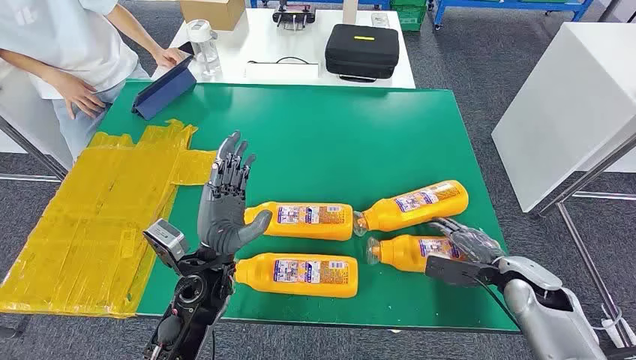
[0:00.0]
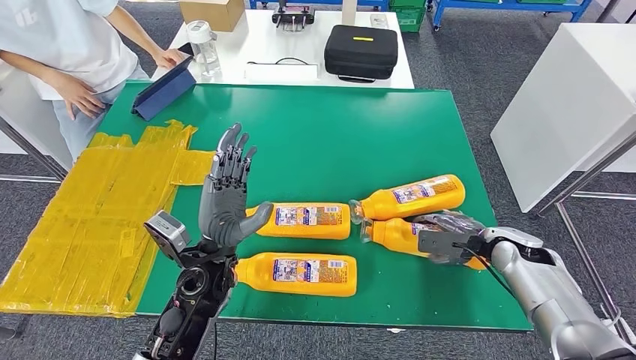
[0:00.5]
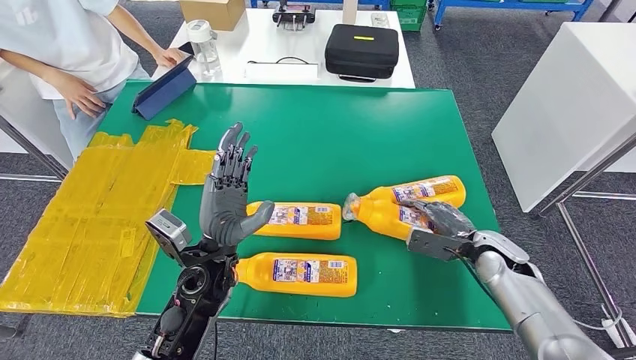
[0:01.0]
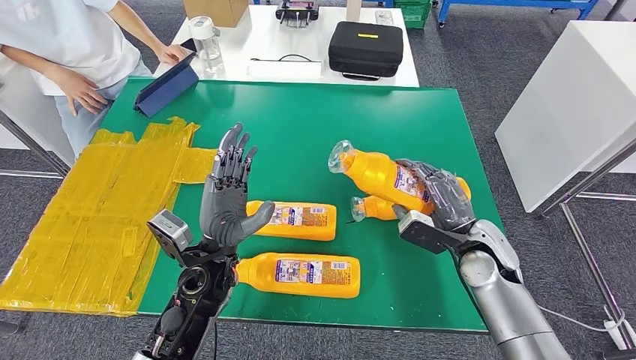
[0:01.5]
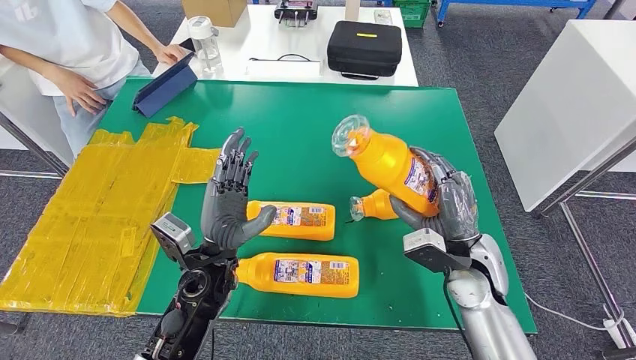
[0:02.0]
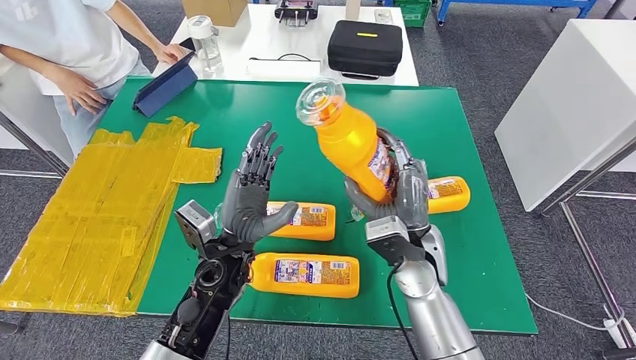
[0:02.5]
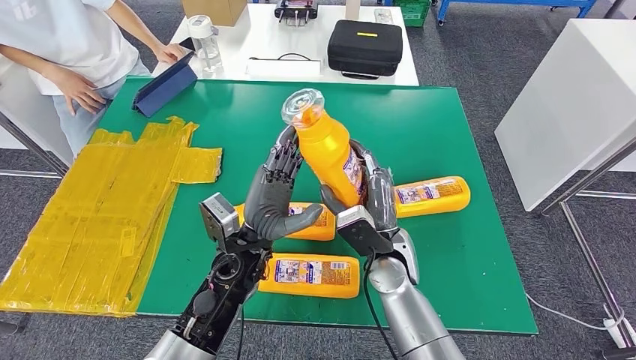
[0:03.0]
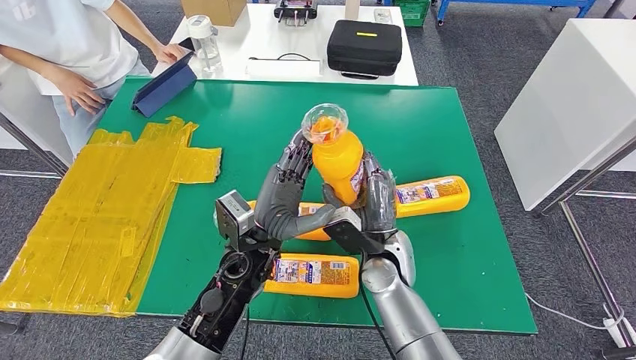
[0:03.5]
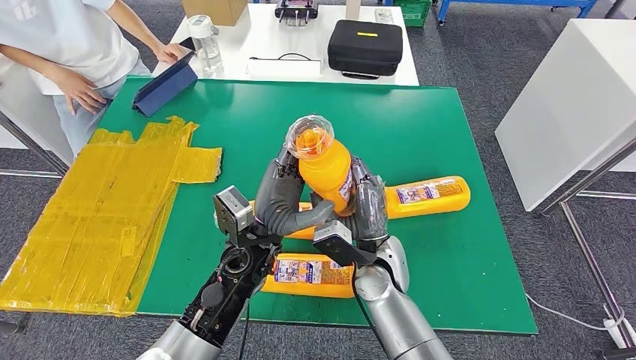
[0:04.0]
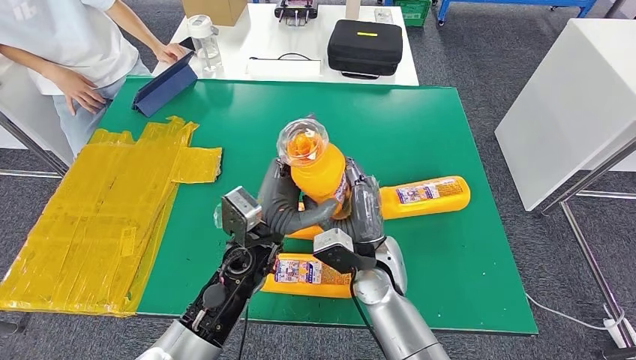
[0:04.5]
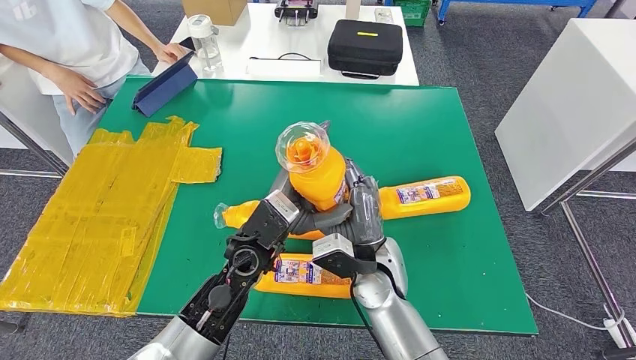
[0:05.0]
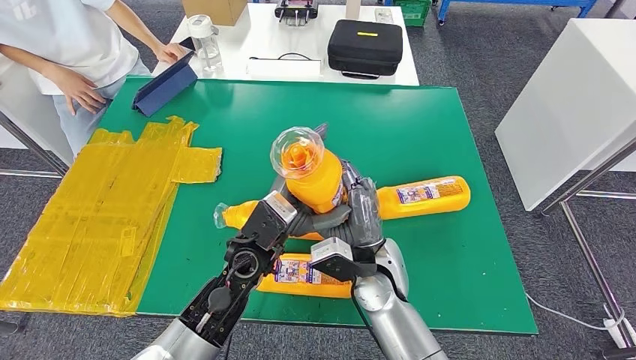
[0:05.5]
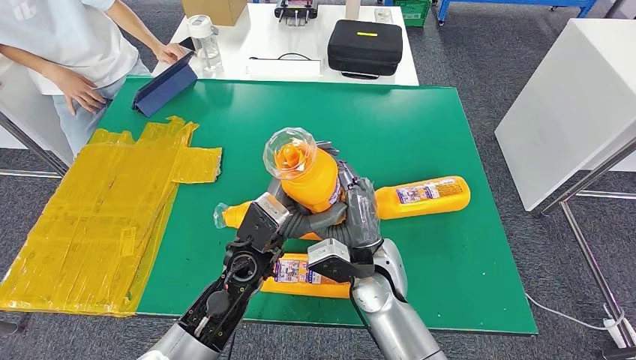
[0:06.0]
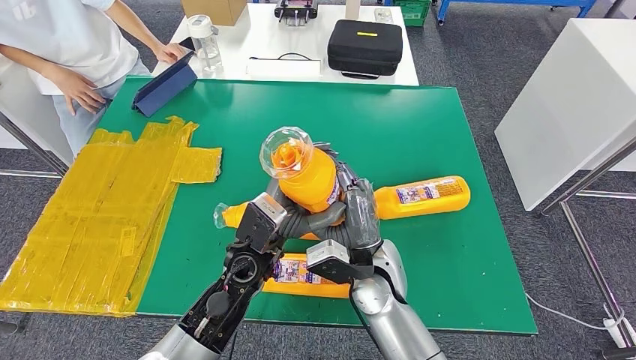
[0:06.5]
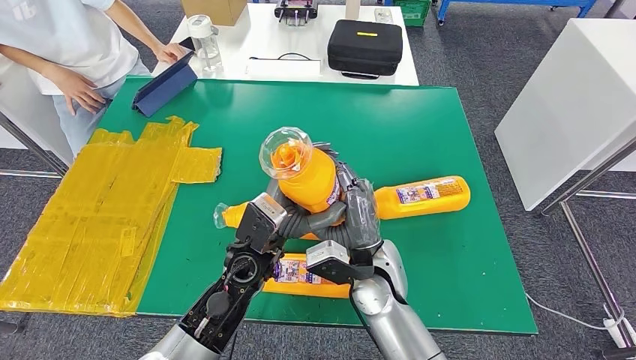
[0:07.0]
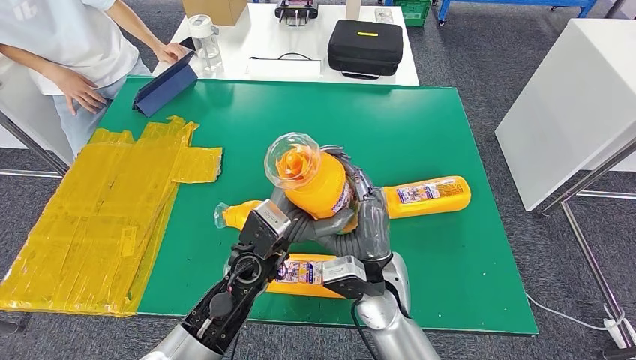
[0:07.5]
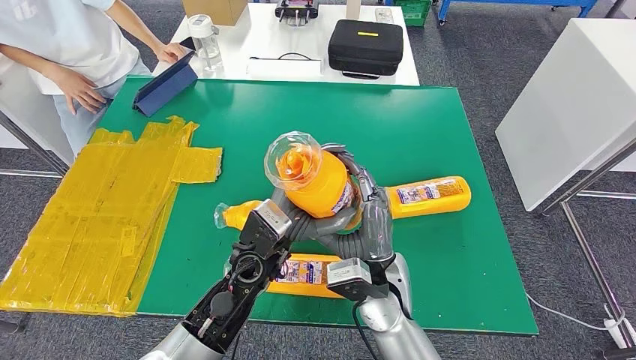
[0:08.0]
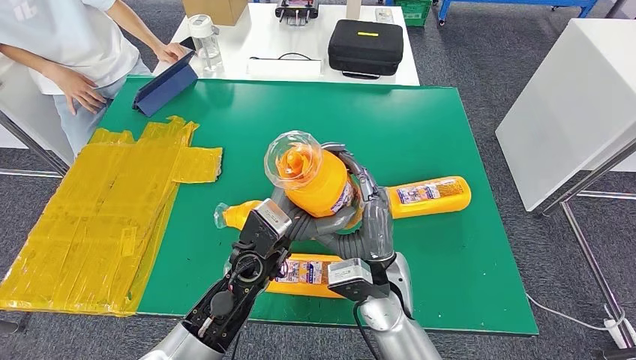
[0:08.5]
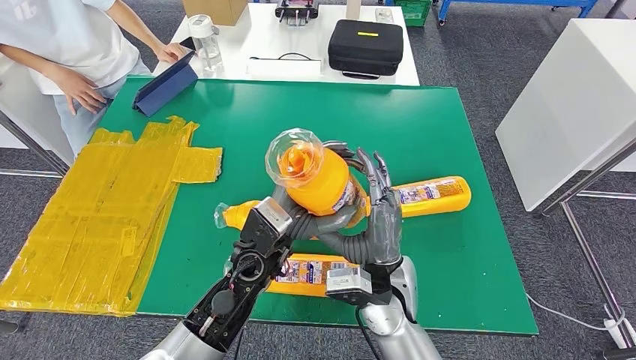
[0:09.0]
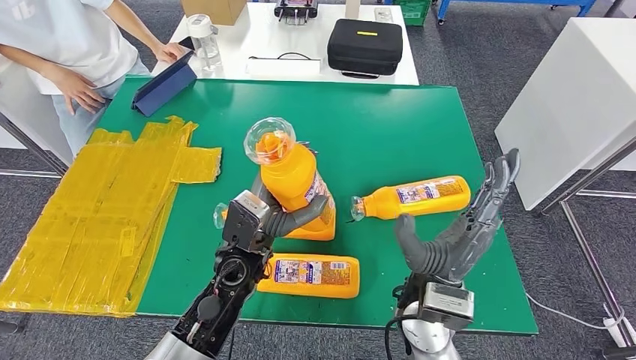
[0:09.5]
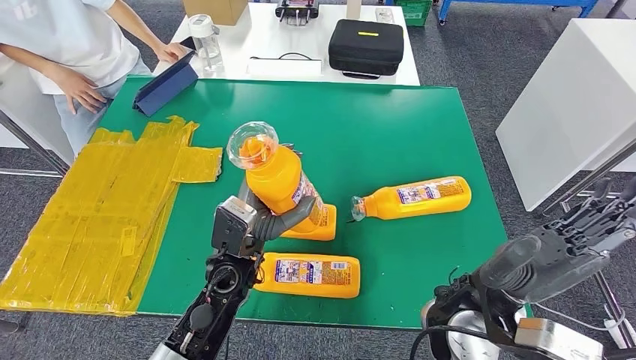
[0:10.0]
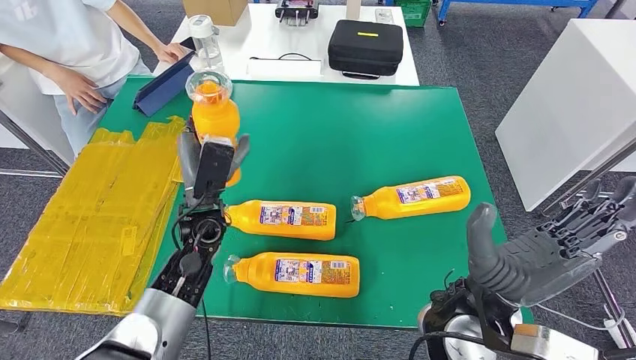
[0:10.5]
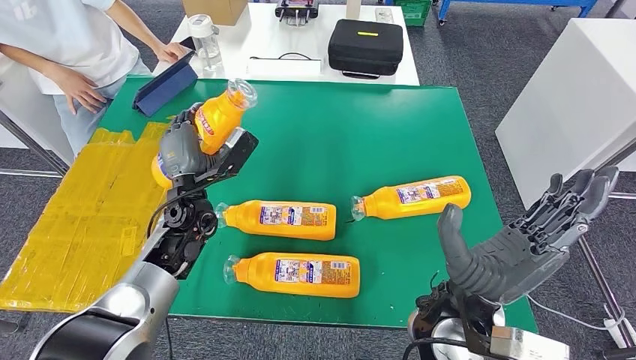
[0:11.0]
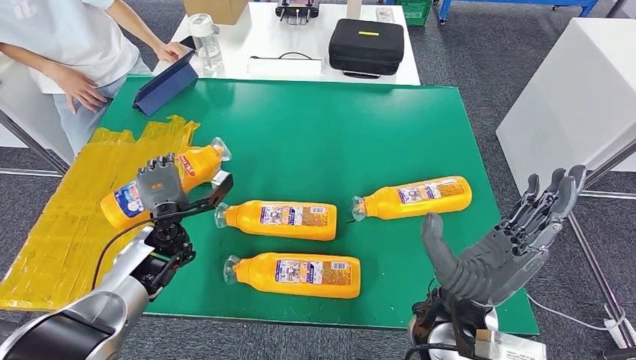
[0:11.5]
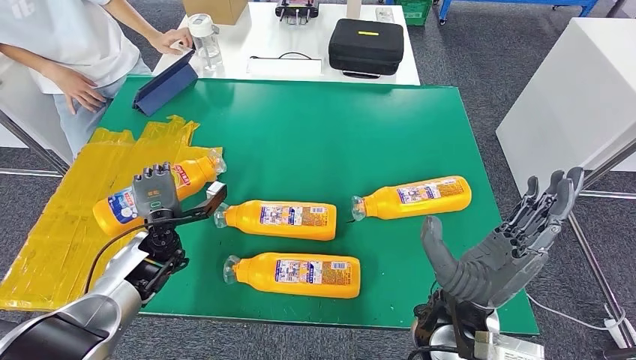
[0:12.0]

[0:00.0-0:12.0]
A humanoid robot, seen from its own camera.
Step, 0:00.0 to 0:04.0: Take the bottle from the table.
0:06.0 to 0:08.0: The hands stay close to where they were, moving slightly.
0:08.0 to 0:10.0: The right hand is displaced to the right and upward by roughly 10 cm.

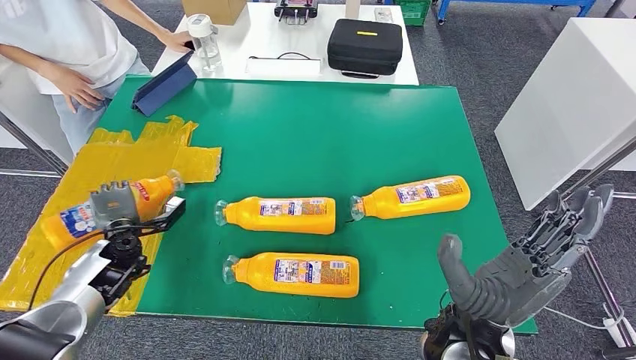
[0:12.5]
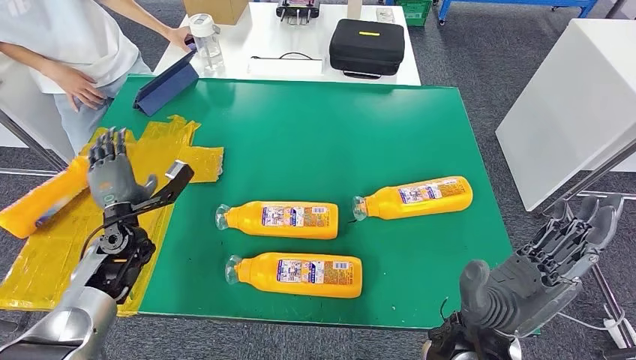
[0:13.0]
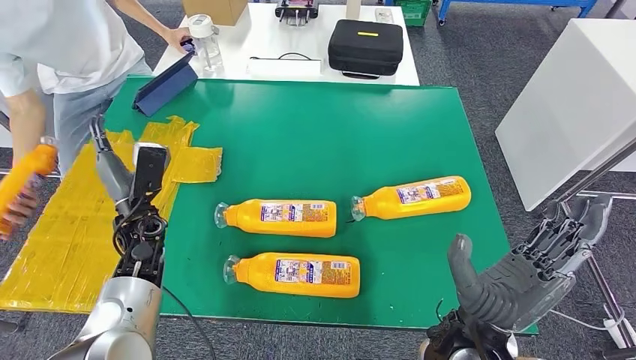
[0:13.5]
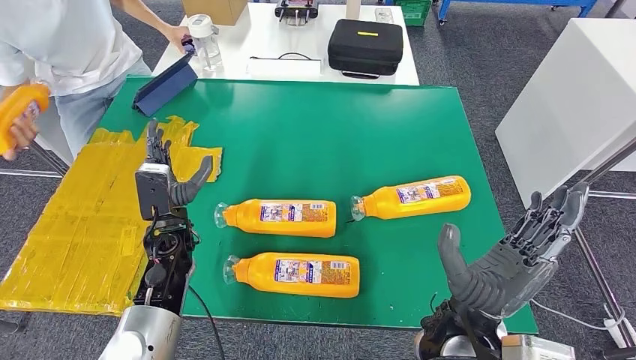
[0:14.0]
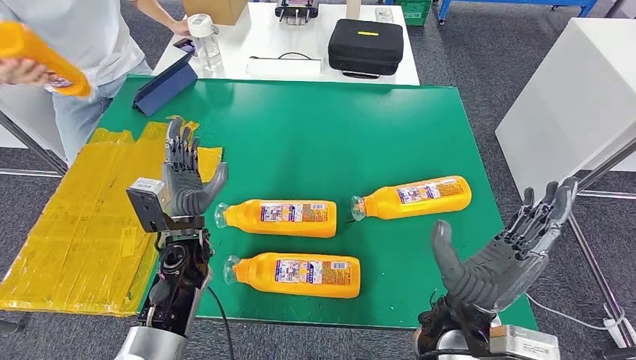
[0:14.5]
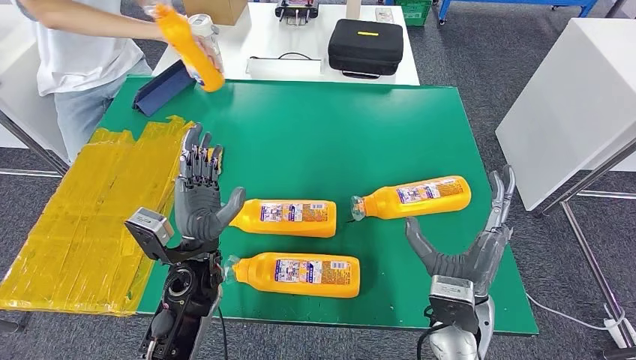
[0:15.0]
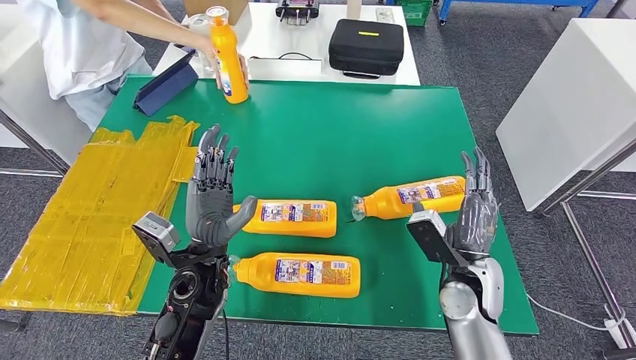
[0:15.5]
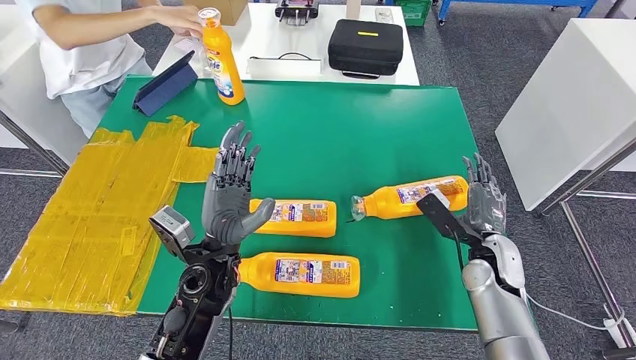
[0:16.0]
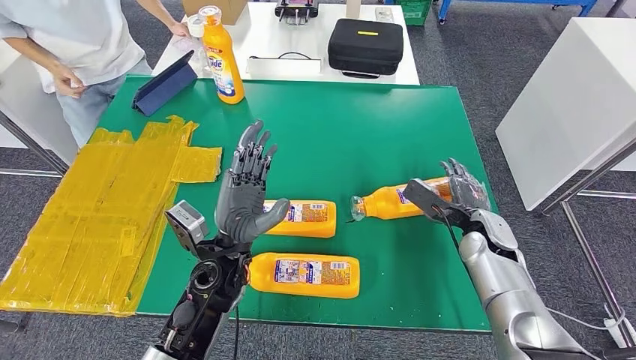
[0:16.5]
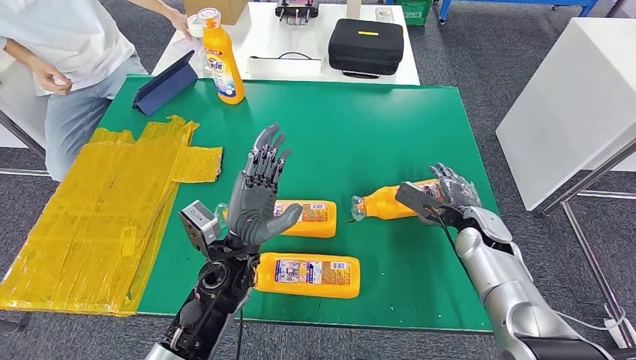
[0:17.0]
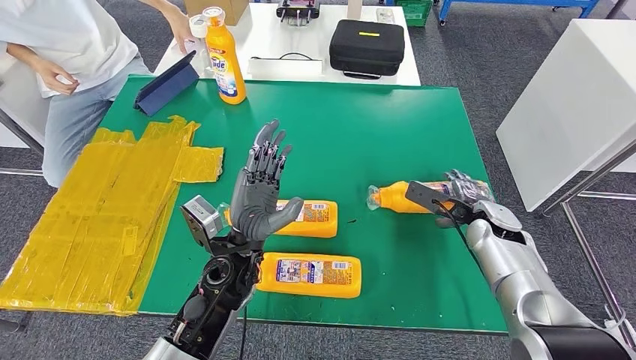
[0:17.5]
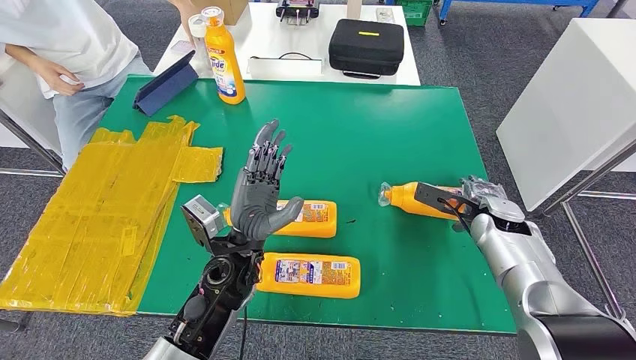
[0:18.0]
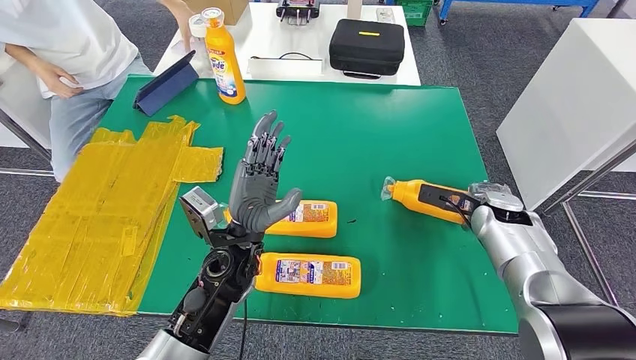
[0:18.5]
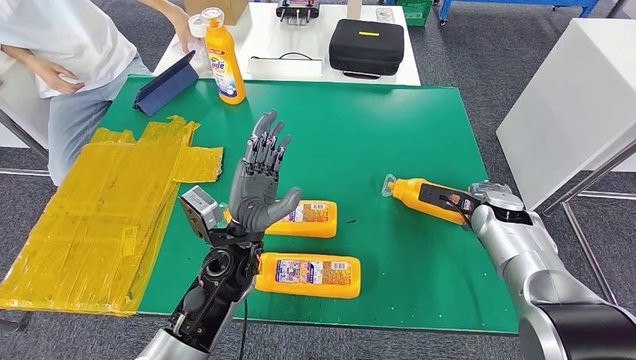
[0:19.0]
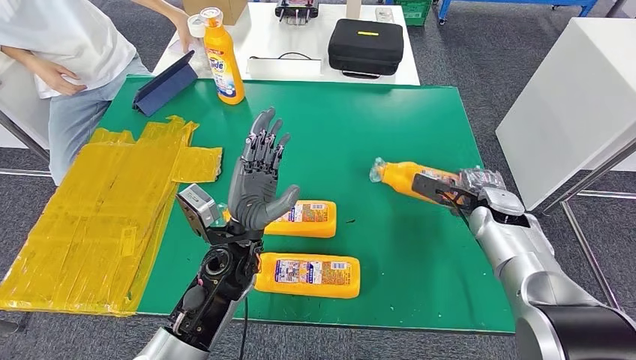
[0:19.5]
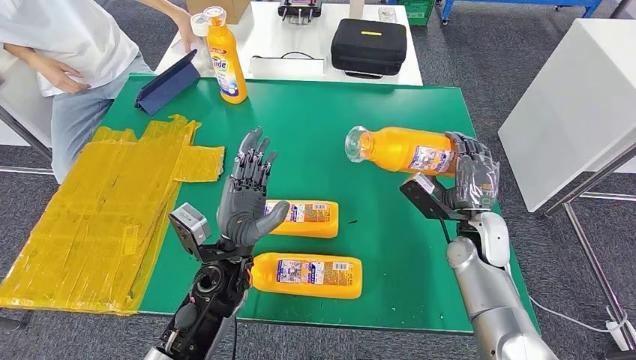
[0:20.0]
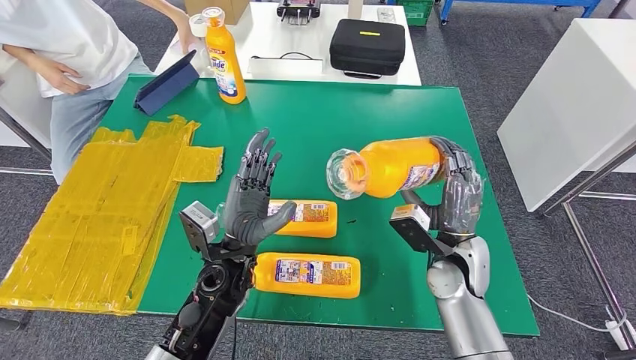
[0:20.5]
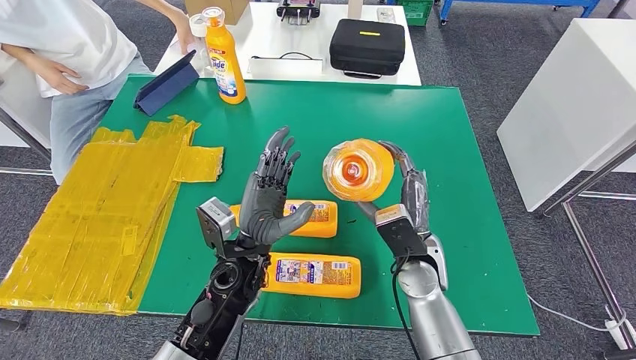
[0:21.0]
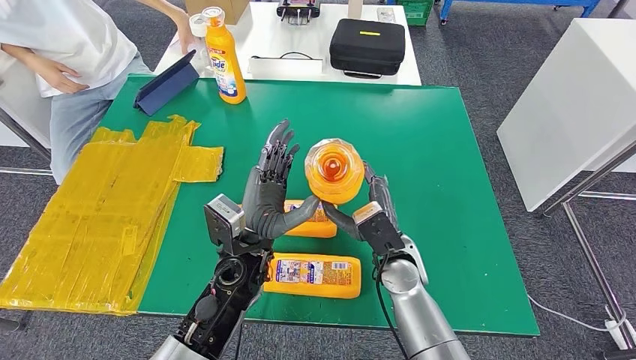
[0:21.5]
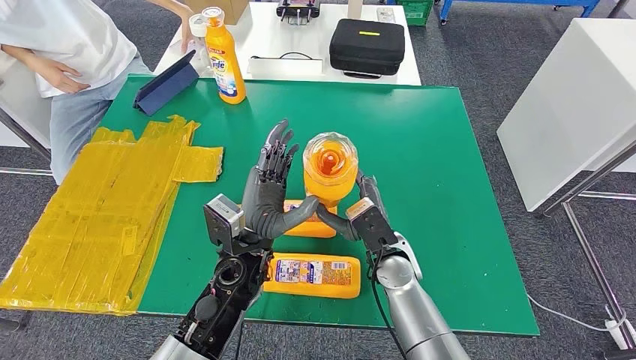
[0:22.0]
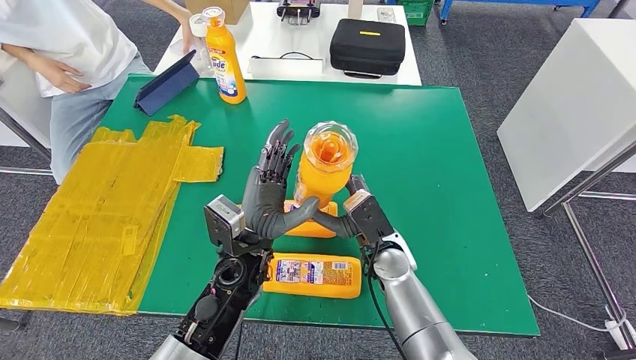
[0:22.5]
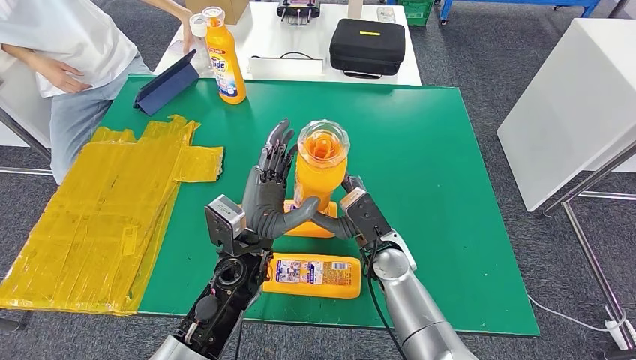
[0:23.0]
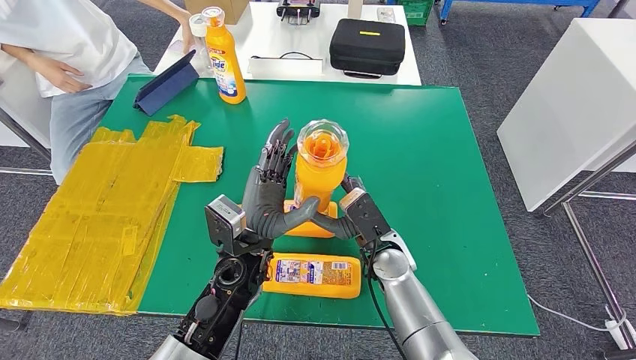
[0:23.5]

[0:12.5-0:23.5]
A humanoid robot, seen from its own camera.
Step, 0:13.5 to 0:21.5: Pick up the bottle from the table.
0:21.5 to 0:23.5: There are only small adjustments of the hands.
